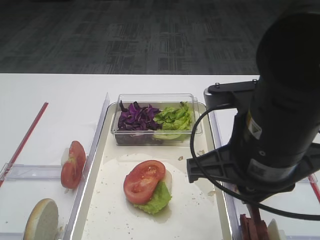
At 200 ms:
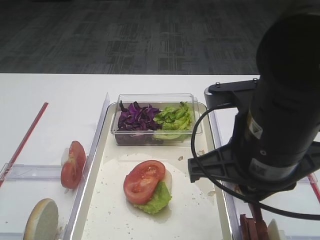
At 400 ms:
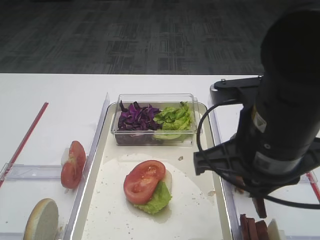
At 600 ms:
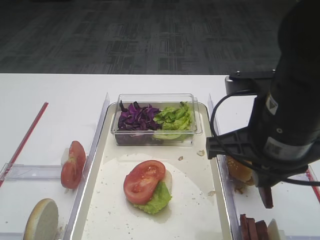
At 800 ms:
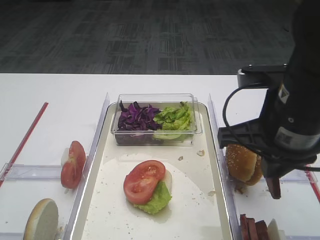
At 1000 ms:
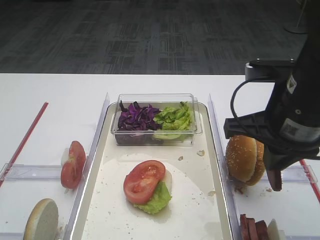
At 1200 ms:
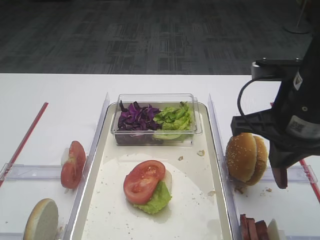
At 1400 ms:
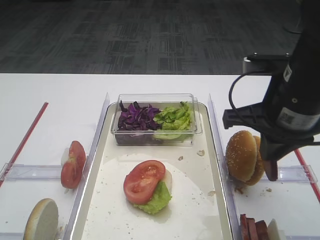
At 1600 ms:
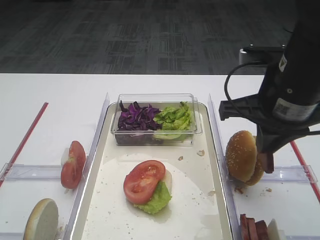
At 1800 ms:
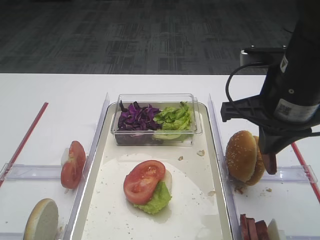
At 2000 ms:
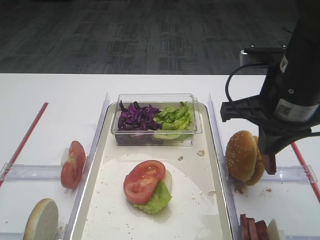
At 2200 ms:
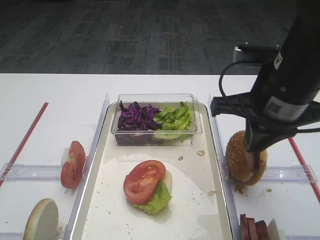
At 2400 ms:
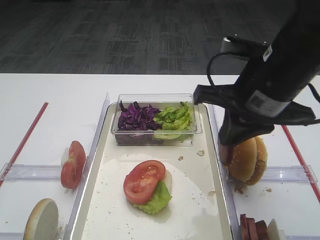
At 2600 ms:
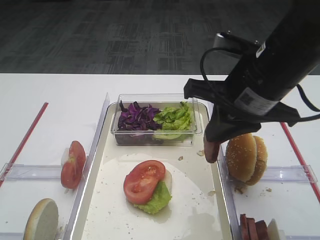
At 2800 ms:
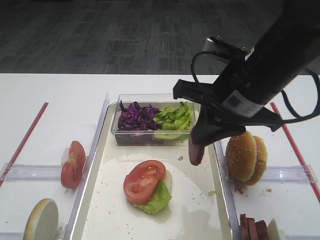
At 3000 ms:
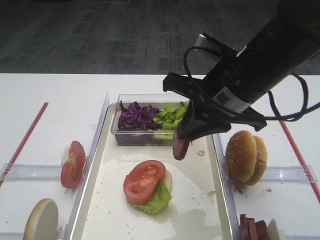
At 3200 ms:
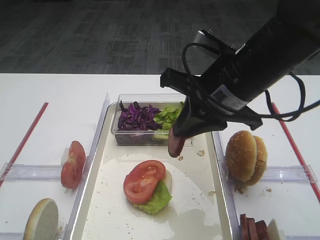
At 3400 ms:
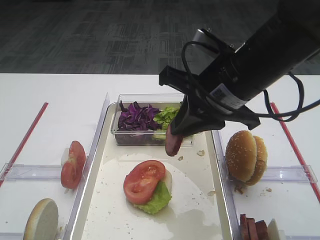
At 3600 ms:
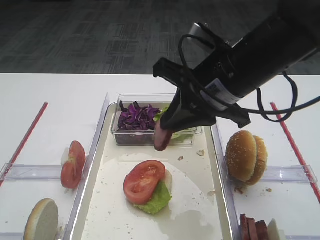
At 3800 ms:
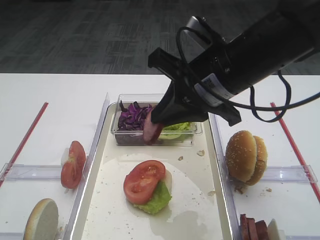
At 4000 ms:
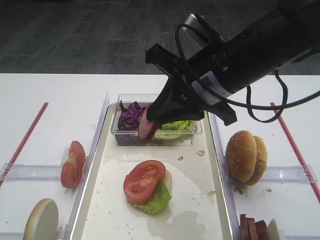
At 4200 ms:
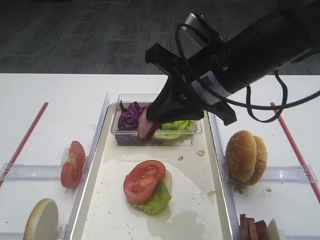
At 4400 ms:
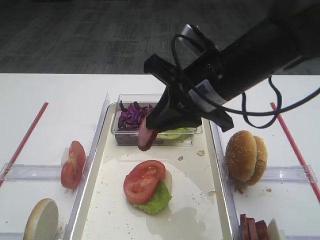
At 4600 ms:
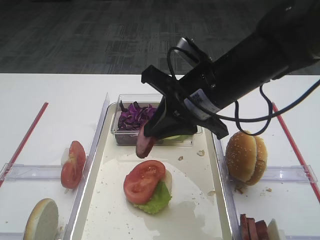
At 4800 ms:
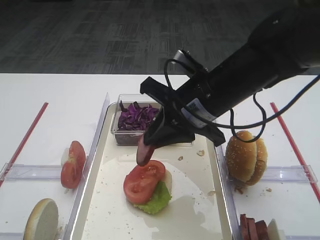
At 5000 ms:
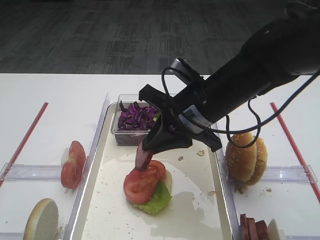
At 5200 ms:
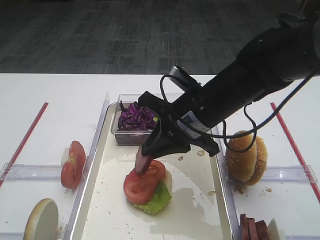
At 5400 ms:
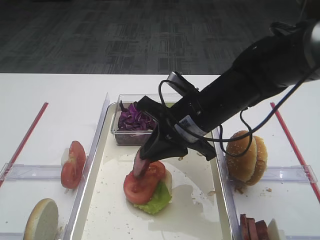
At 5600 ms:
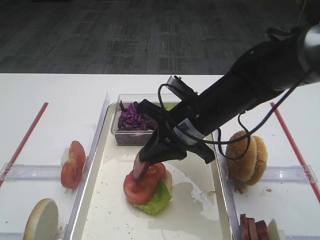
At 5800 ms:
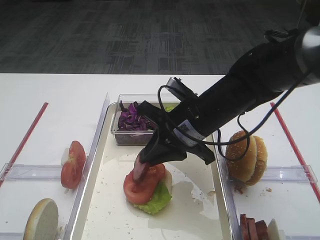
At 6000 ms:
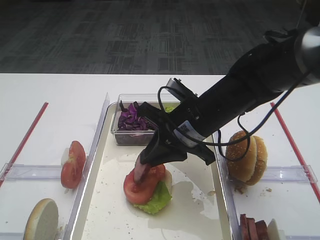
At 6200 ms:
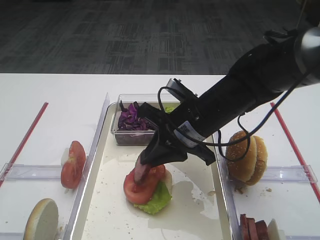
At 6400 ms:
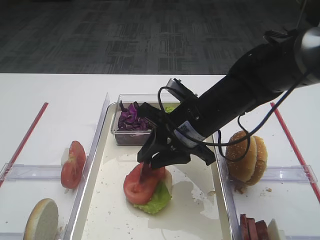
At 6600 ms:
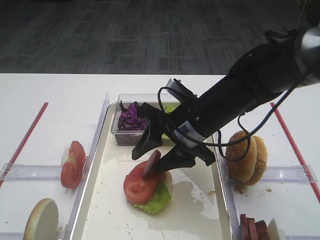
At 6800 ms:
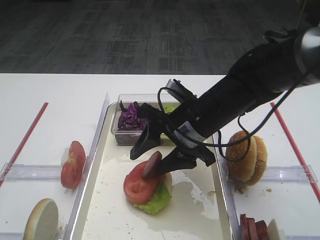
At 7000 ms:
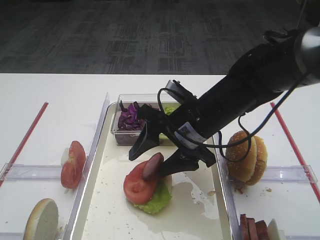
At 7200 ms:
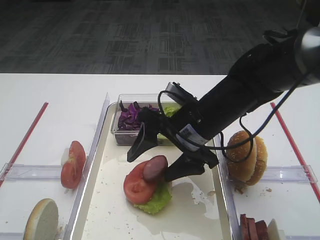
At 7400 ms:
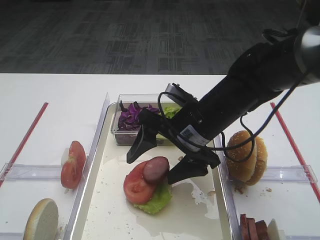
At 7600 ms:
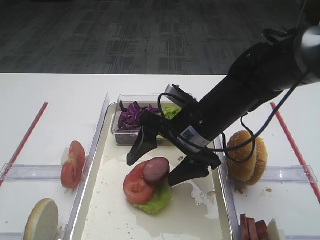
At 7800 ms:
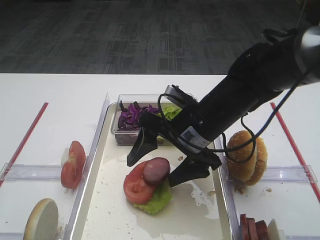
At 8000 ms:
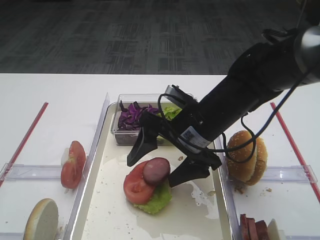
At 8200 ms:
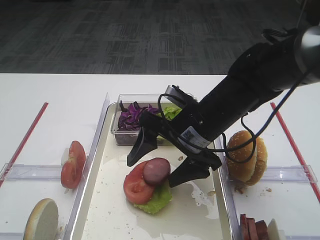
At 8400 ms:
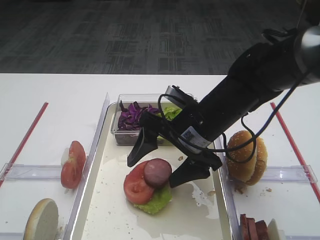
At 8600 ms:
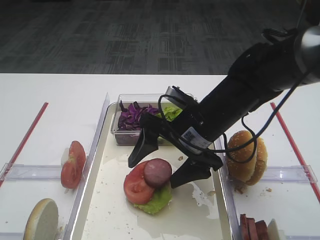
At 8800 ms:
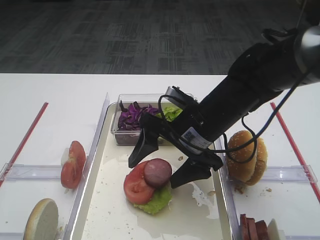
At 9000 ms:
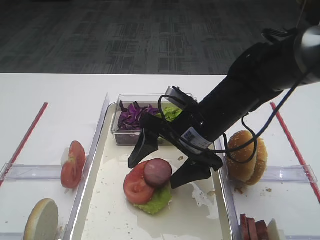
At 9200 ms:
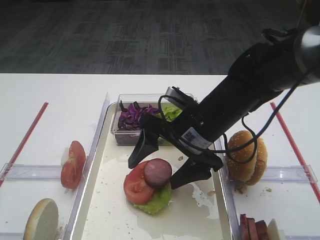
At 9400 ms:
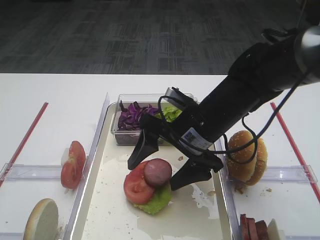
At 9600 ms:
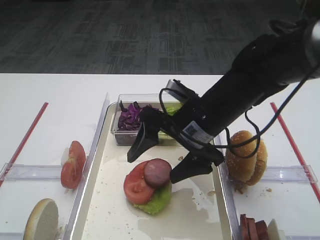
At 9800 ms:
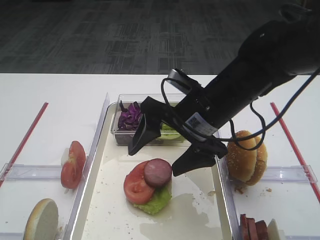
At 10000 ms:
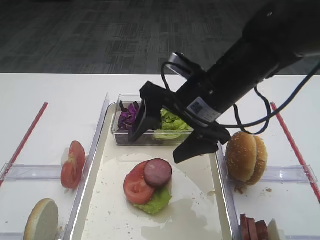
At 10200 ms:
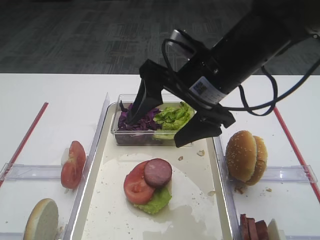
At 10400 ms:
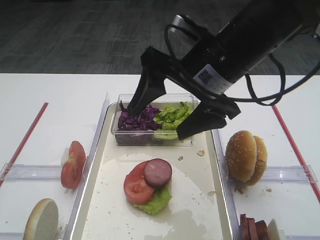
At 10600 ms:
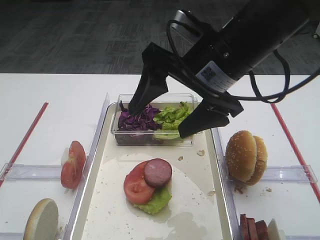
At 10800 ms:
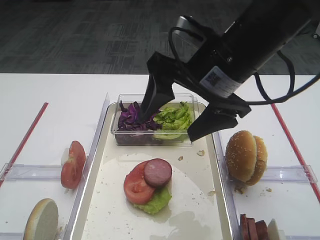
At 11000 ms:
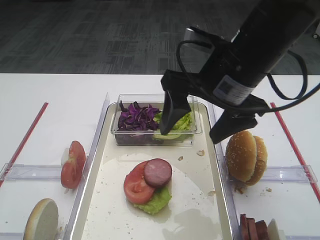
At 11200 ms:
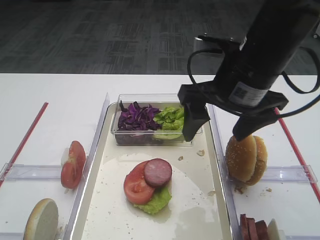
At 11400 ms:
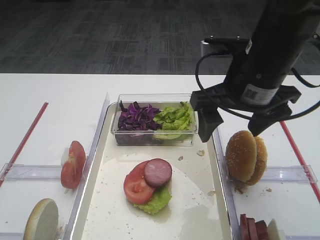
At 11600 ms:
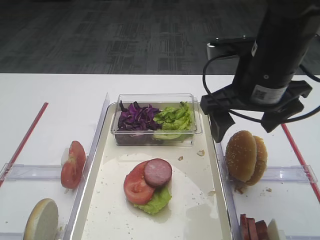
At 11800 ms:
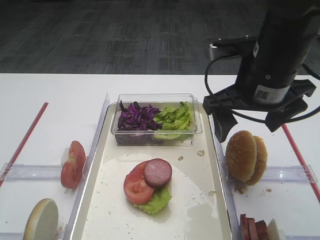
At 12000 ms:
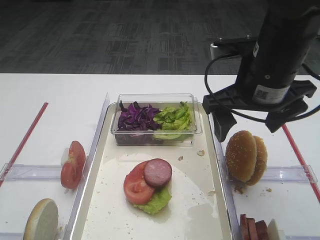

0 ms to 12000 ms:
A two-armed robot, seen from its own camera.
Step, 200 ms to 8400 ms: Place the cutlet on the tomato slice with the right gripper.
0 ms to 1600 ms: The right gripper moves forward and to the right, approximately 10 cm.
1600 ms to 3000 ms: The right gripper travels to the left by about 5 cm.
3000 ms to 4400 ms: The grippers move only a little.
4400 ms to 6000 ms: The right gripper moves downward, about 10 cm.
6000 ms to 7600 ms: The right gripper opens its fingers.
7600 ms to 9000 ms: Neither gripper changes place.
9000 ms to 10400 ms: The right gripper is displaced upward by roughly 10 cm.
10400 ms to 12000 ms: The right gripper goes some 5 cm to the right.

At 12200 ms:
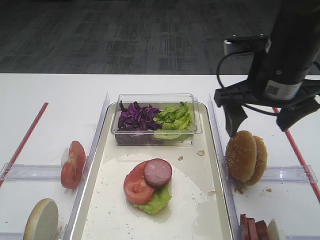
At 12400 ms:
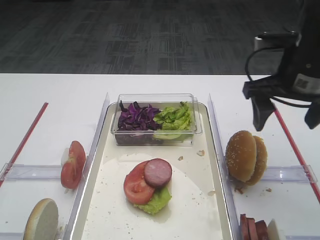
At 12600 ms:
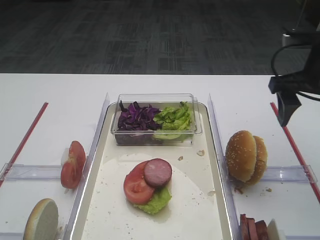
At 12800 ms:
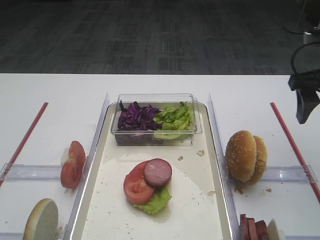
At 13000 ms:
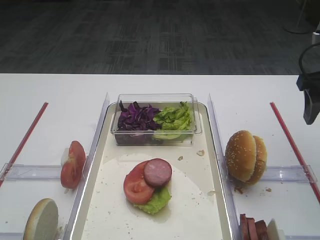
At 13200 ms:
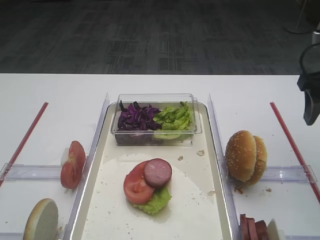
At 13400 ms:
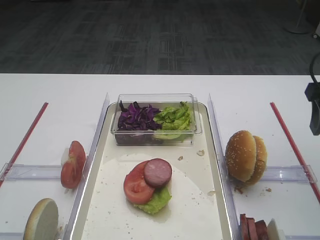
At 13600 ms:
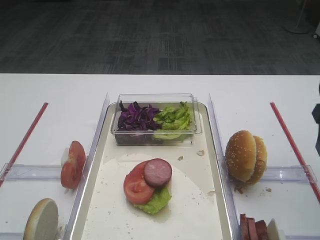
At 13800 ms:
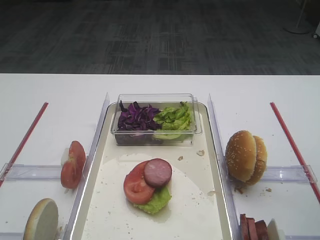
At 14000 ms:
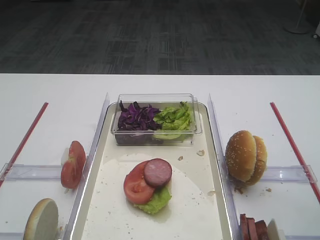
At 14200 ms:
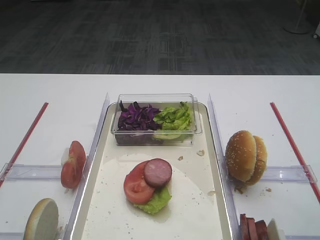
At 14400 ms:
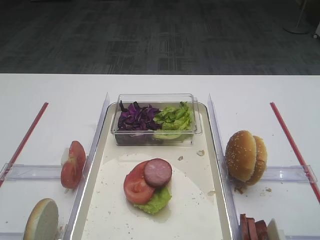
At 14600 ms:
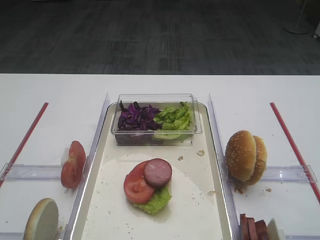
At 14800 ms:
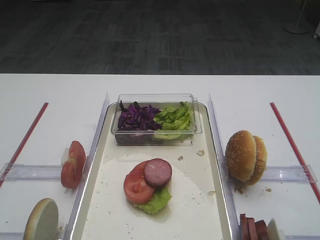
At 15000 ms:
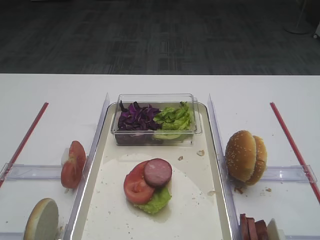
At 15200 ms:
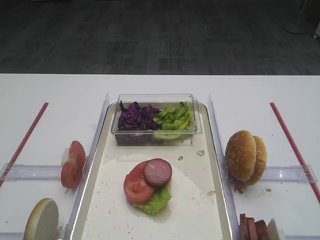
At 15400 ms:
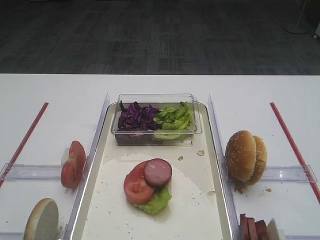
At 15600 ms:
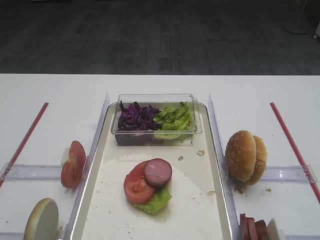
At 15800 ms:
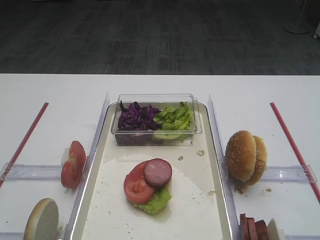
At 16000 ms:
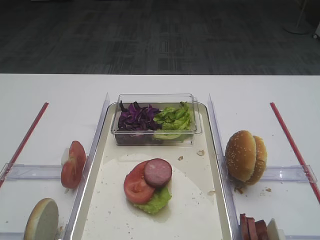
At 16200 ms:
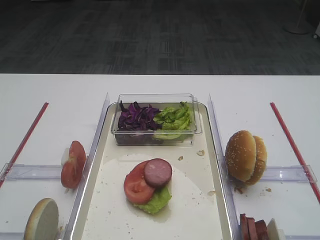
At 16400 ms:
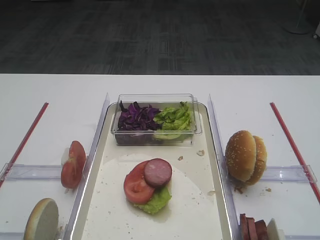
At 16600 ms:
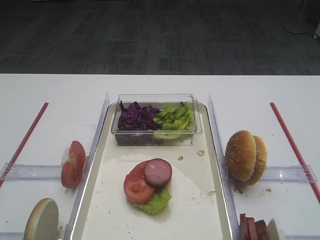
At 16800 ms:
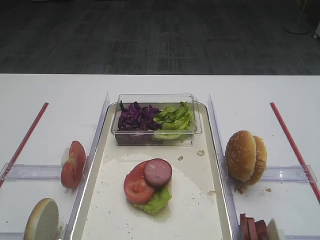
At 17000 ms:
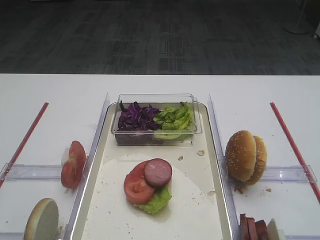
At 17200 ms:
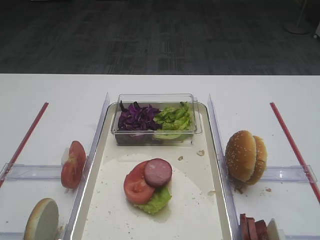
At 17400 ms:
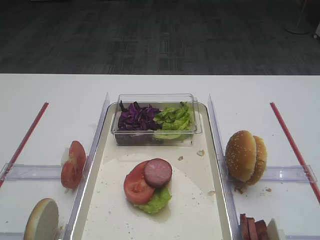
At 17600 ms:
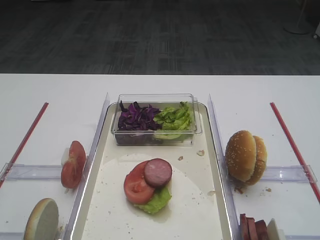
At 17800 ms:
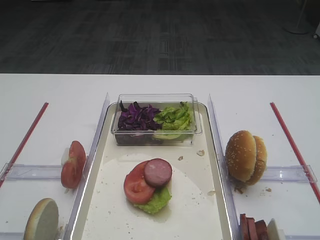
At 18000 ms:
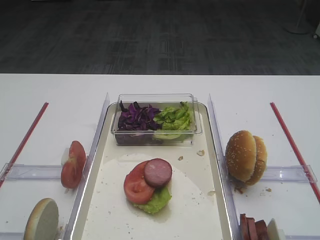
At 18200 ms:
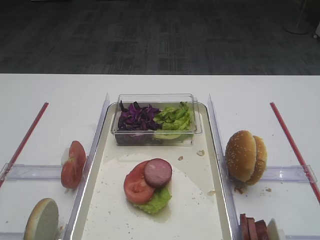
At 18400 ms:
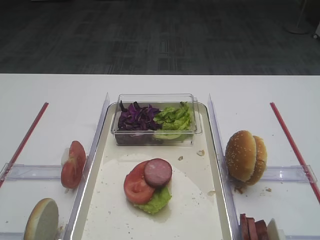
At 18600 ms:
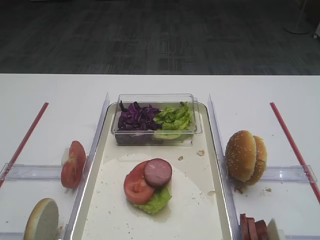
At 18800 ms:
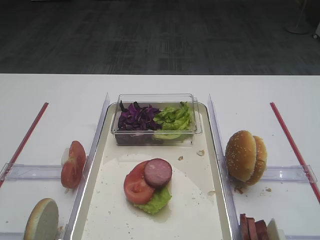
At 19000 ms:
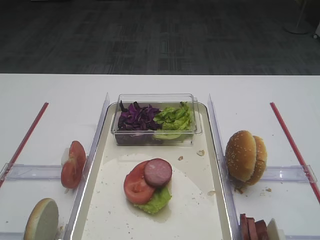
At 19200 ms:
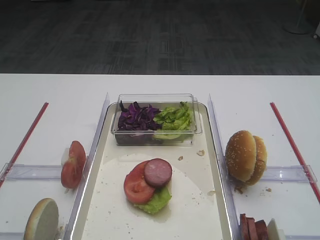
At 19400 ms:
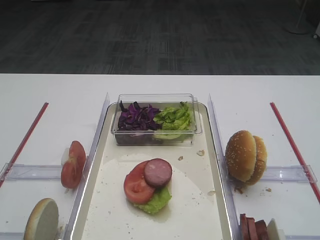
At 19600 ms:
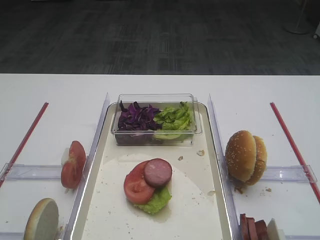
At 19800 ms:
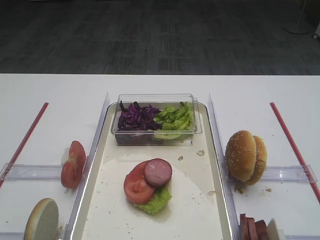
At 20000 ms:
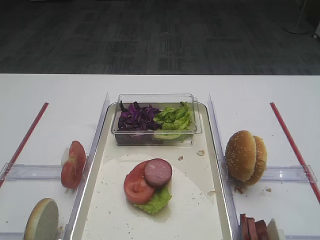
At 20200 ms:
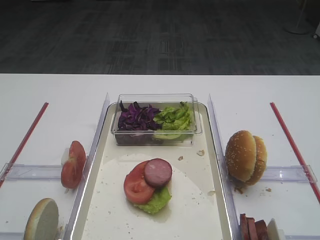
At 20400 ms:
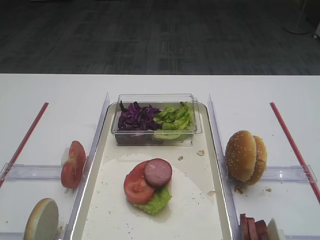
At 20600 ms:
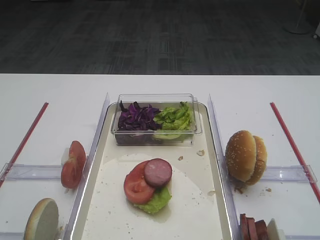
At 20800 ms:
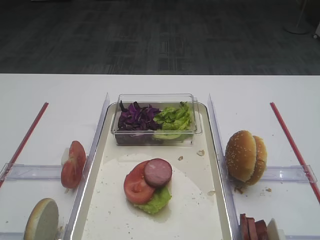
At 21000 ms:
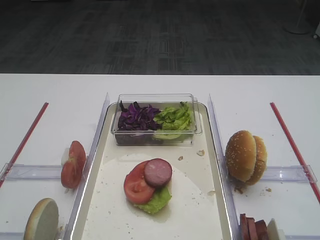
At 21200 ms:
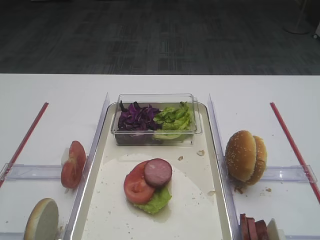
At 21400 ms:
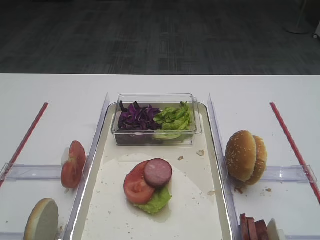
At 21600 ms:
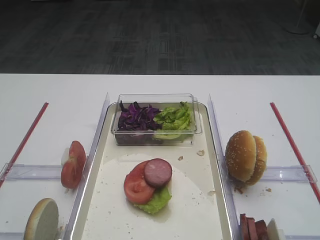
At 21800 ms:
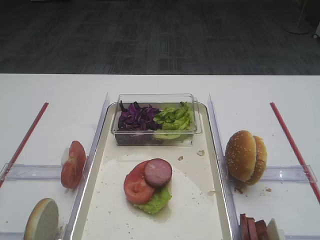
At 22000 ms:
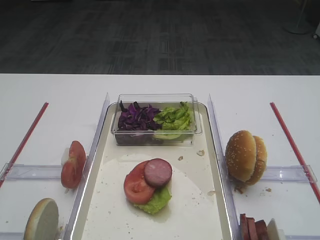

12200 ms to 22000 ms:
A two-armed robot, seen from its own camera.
12200 ms to 13600 ms: The right gripper moves to the right, about 15 cm.
16400 ms to 22000 ms: Both grippers stay about where they are.
